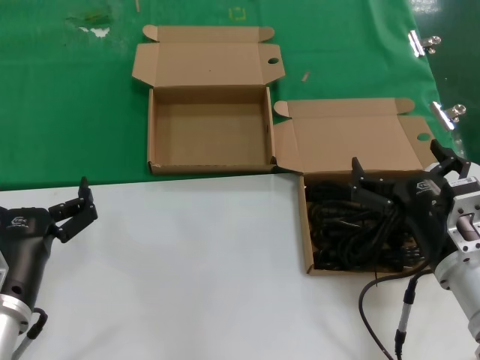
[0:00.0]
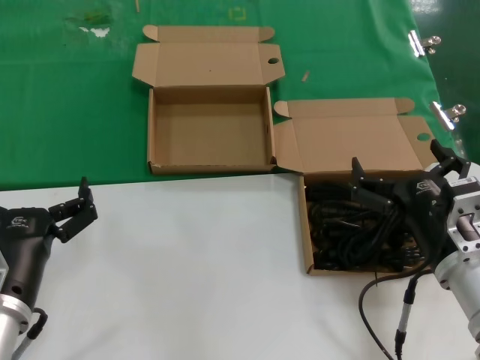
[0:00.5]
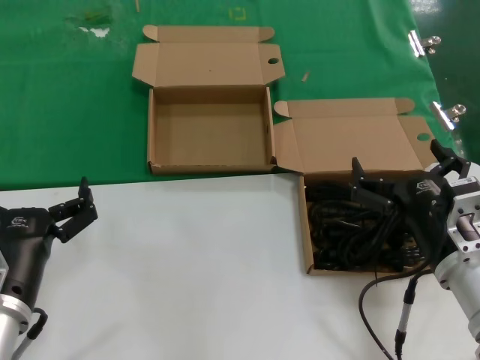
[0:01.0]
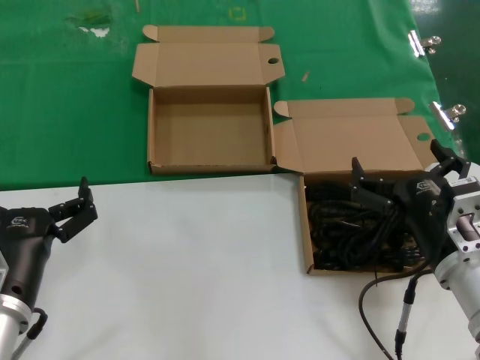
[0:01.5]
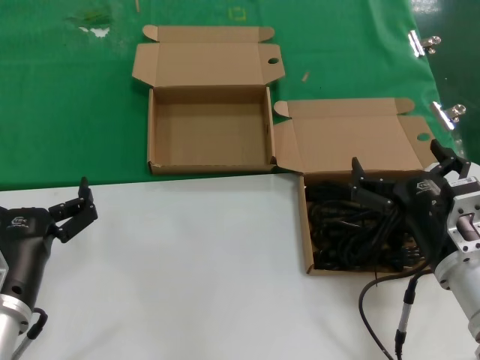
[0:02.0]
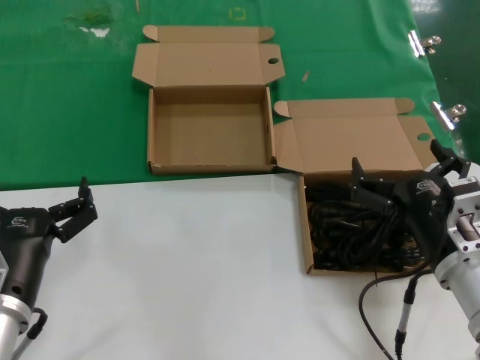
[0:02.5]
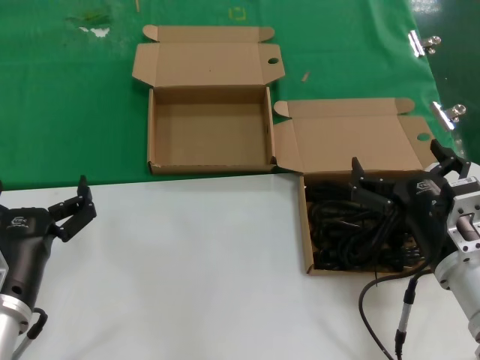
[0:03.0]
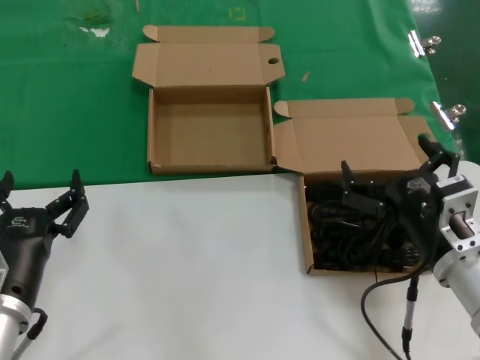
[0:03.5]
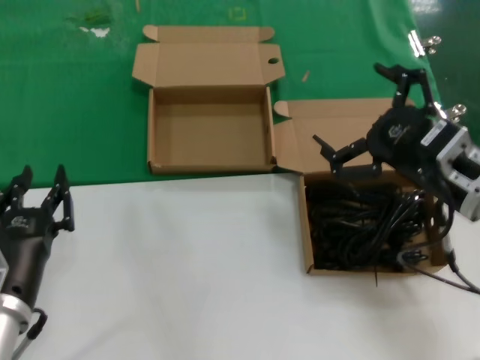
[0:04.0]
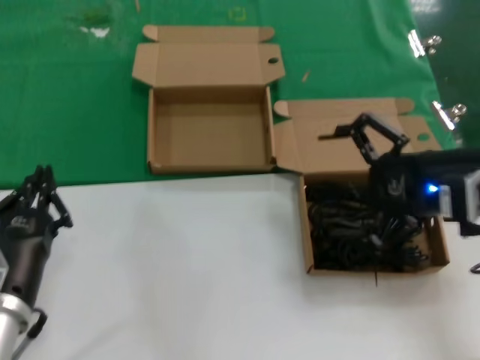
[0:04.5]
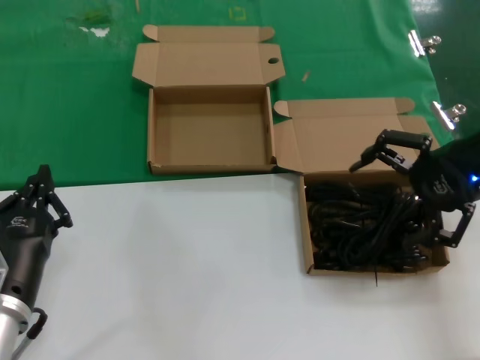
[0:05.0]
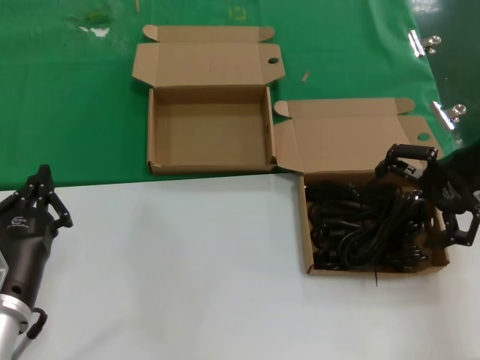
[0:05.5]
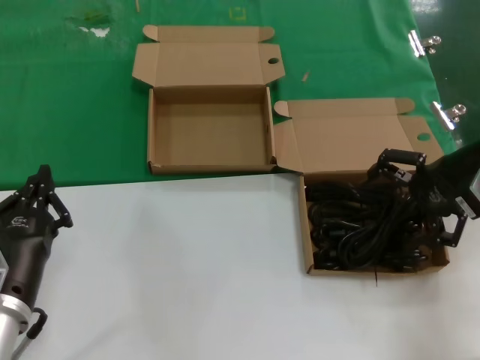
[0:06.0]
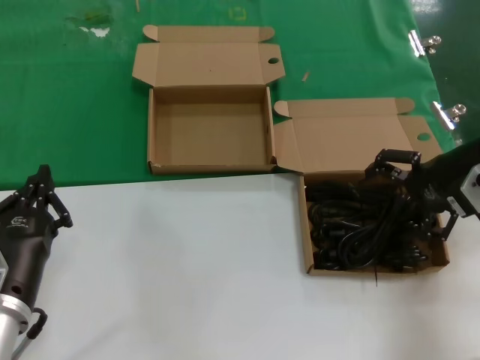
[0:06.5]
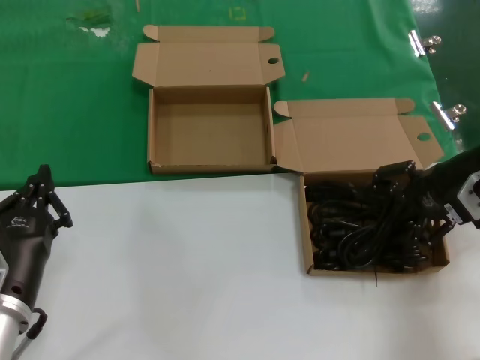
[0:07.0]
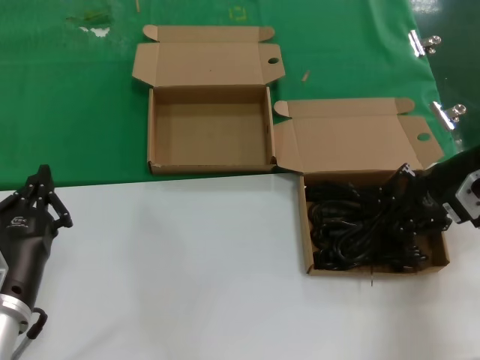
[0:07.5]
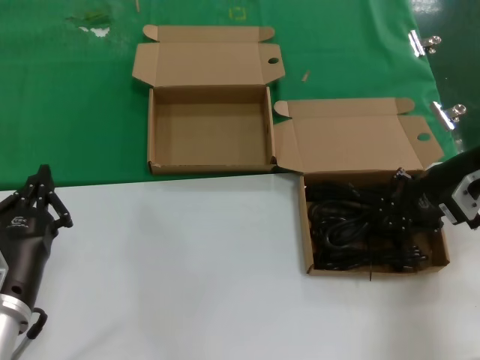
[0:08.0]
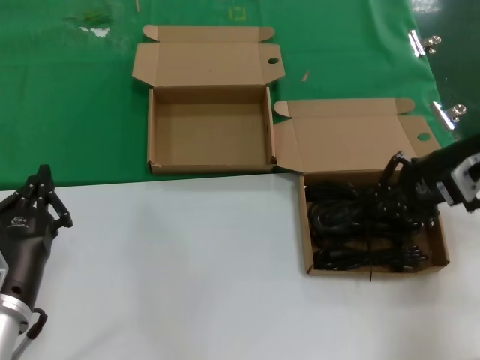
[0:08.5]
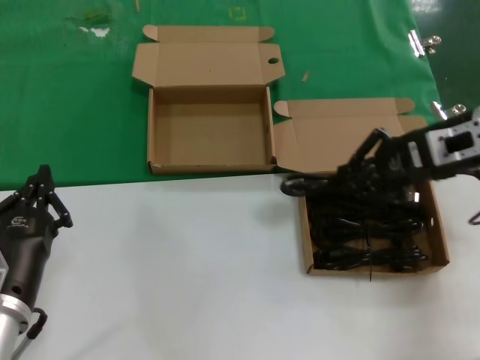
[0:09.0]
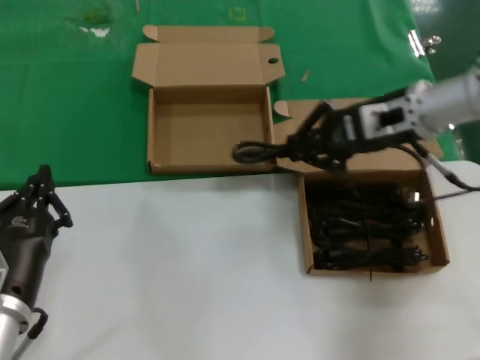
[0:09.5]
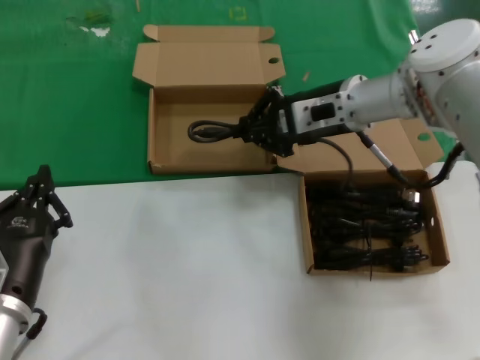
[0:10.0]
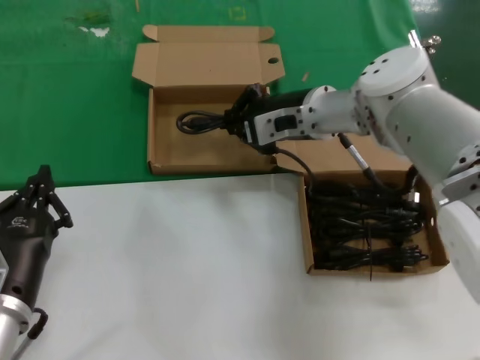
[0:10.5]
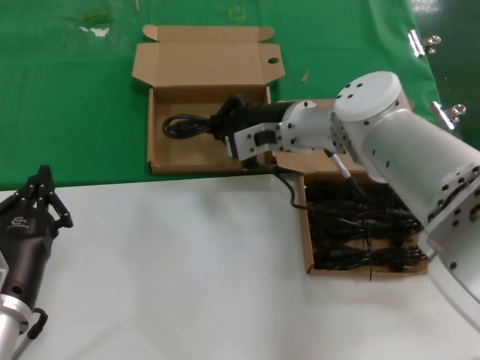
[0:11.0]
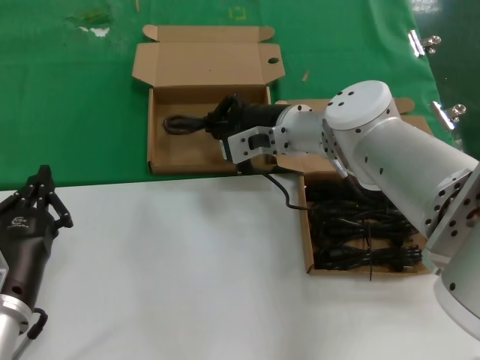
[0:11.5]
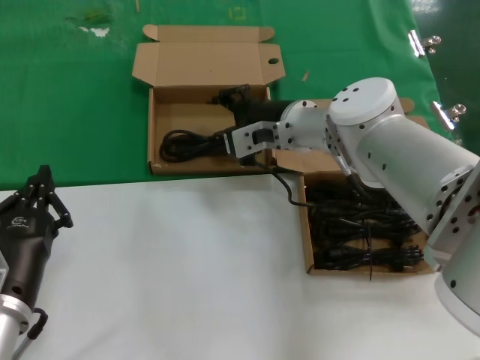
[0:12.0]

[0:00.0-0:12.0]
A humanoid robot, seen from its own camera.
Task of the whole recording: take the parts from the box containing them and put them into an empty box.
Step, 0.0 to 7.5 s: Grasp the data cable.
Step, 8.0 to 11.5 s: Place the data cable in the another box.
0.0 to 2.0 s: Both hands stay about where they are.
2.0 to 4.0 s: The right hand goes about 10 cm upward.
4.0 to 6.0 s: The right hand goes roughly 15 cm forward, to the right and upward.
6.0 to 8.0 s: The right hand moves approximately 5 cm.
8.0 to 10.0 s: The right hand shifts about 20 cm to the left and forward.
10.0 to 12.0 s: The right hand is displaced to the left and downward by roughly 10 cm.

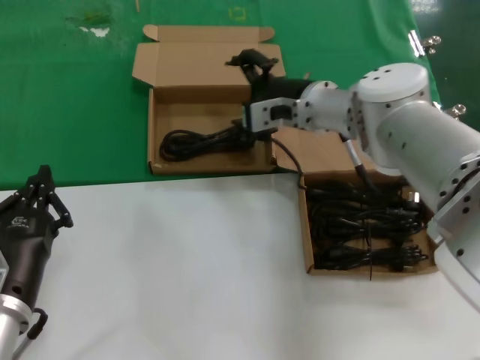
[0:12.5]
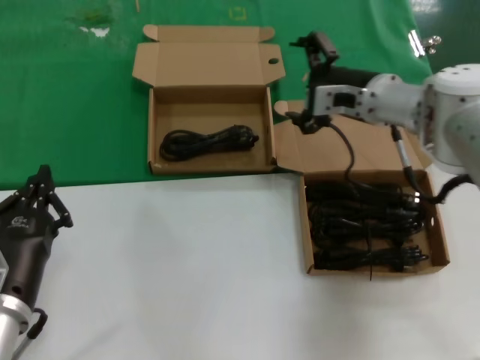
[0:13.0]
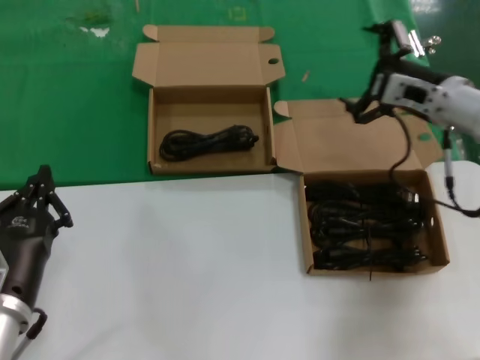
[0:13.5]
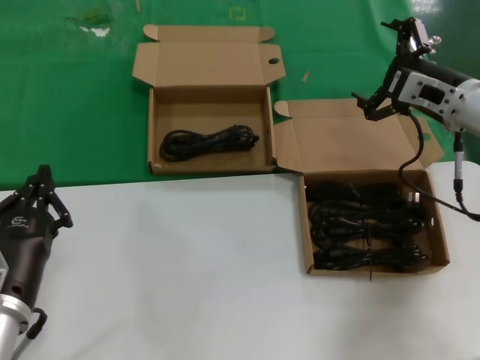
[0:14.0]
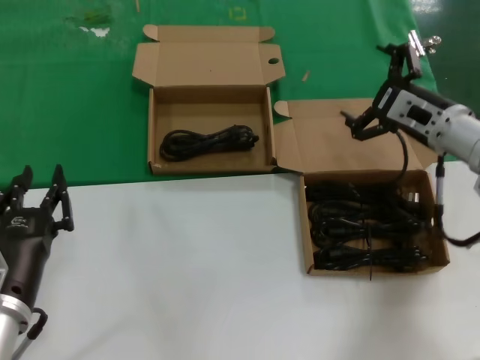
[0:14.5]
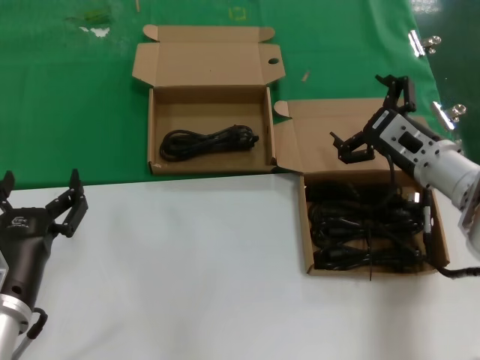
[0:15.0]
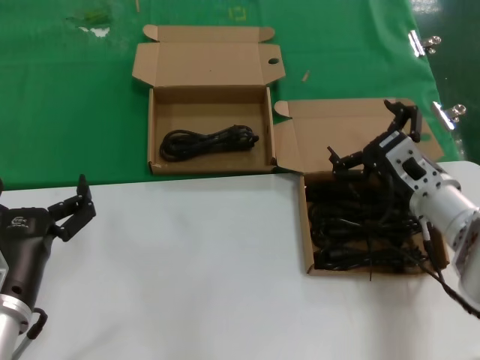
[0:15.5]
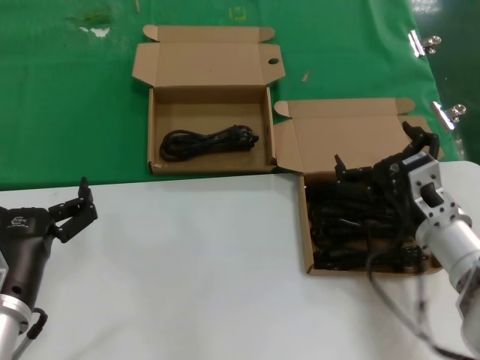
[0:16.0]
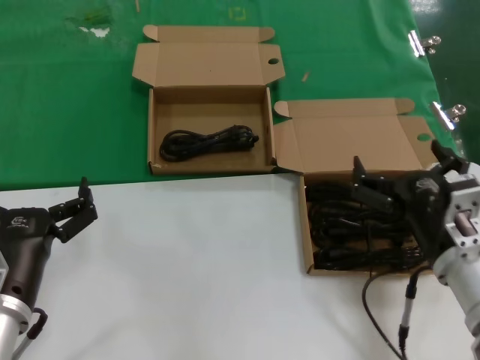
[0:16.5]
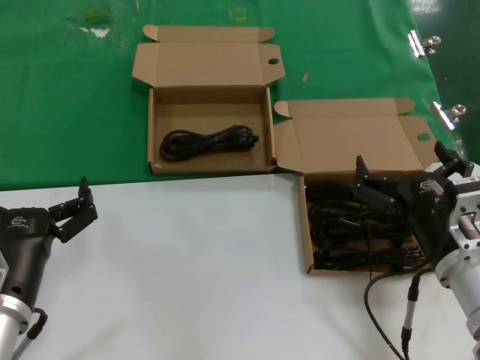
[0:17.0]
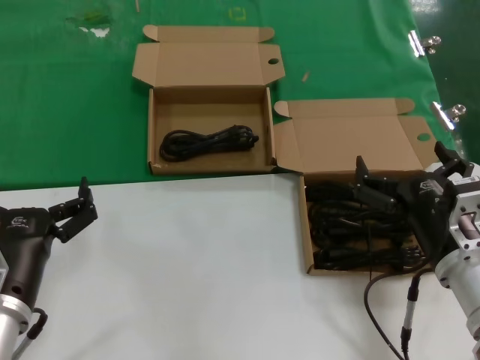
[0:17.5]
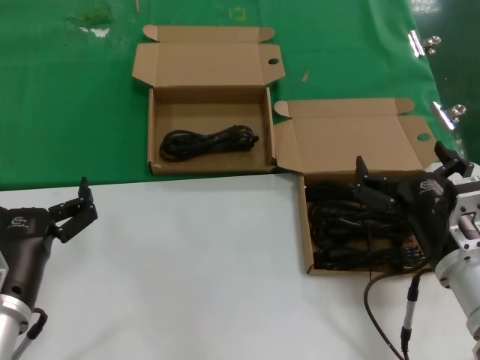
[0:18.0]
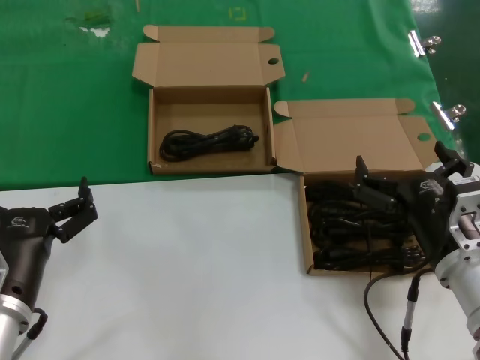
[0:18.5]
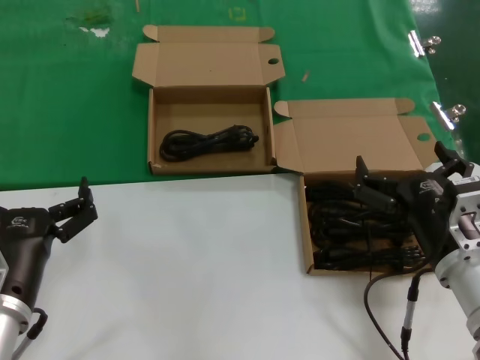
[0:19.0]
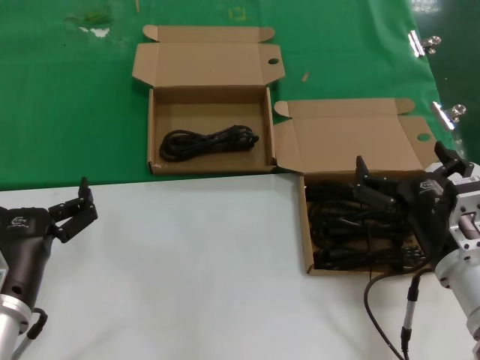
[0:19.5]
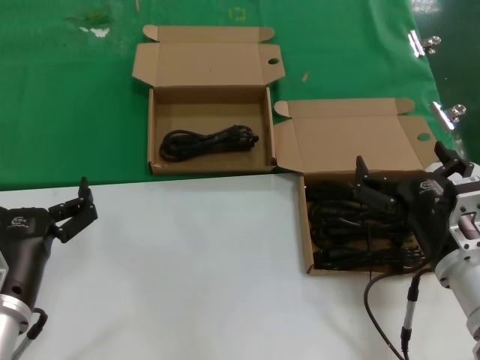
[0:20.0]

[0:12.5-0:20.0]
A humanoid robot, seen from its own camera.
Task of the whole recording: take the parts from the box containing them and put them into an empty box.
12.5 to 14.5 s: The right hand travels to the right by roughly 20 cm.
14.5 to 16.5 s: The right hand travels backward by approximately 20 cm.
16.5 to 20.0 s: Both hands stay put.

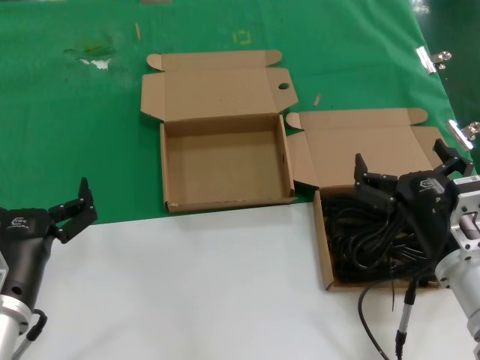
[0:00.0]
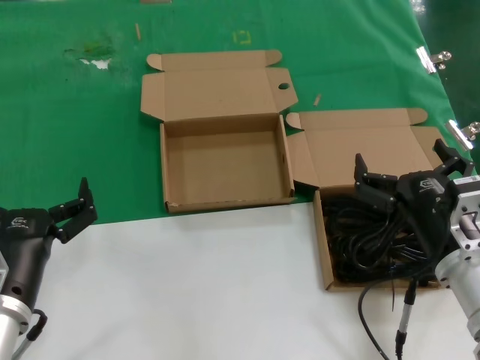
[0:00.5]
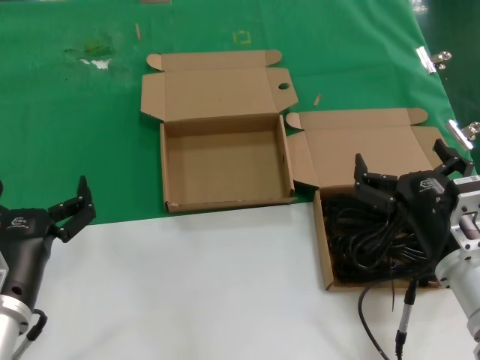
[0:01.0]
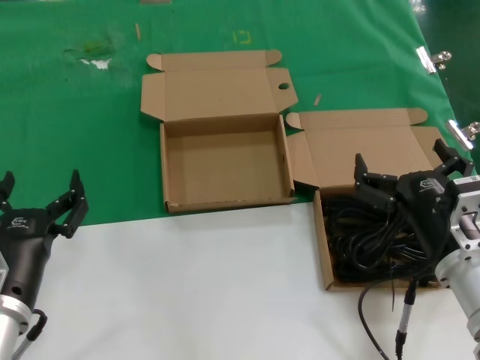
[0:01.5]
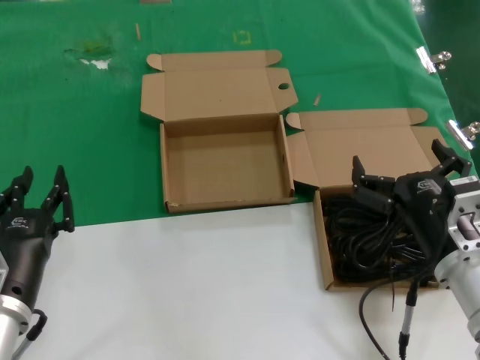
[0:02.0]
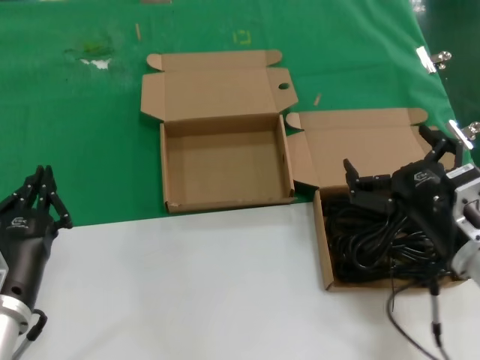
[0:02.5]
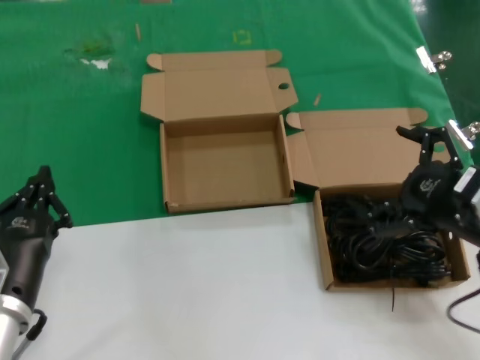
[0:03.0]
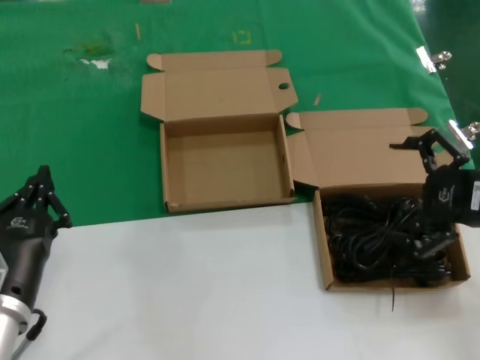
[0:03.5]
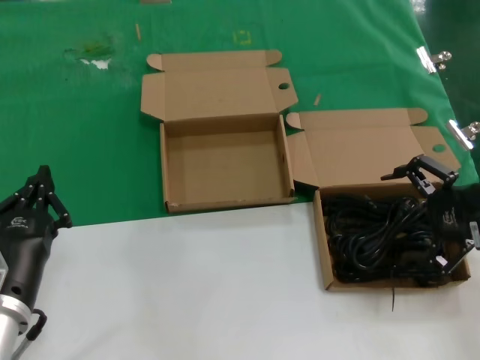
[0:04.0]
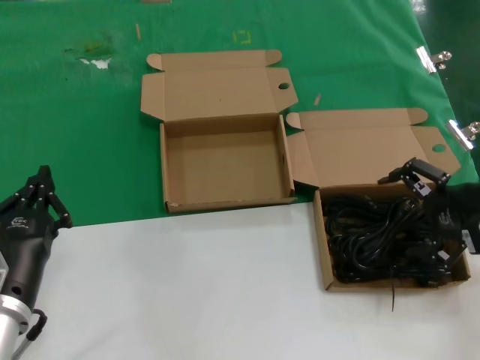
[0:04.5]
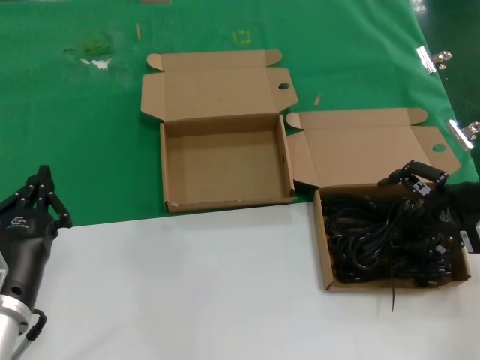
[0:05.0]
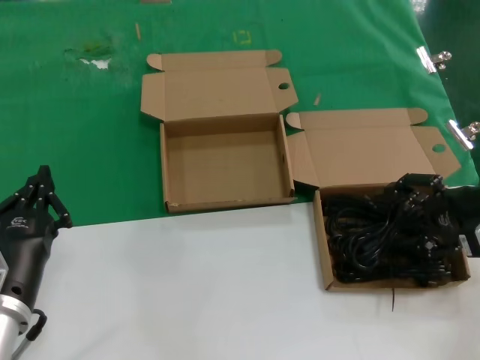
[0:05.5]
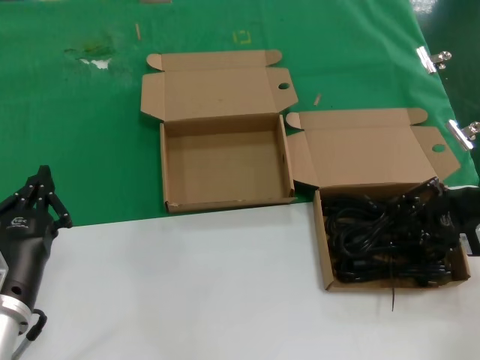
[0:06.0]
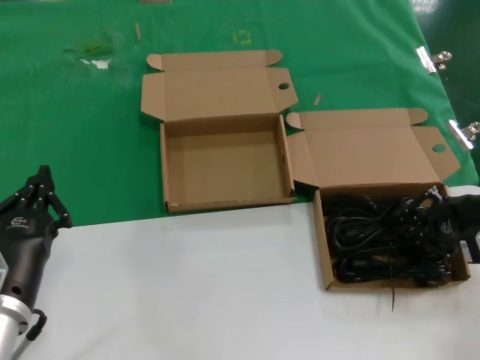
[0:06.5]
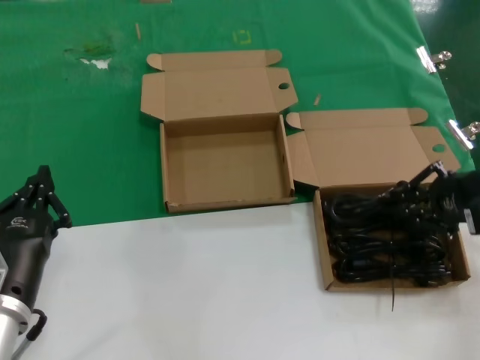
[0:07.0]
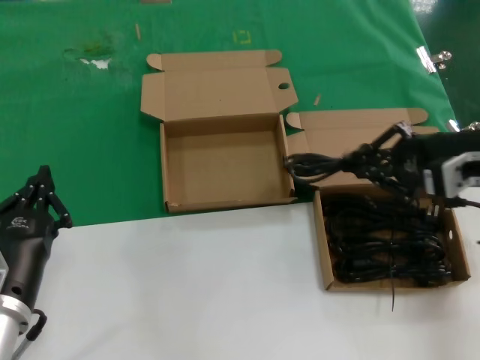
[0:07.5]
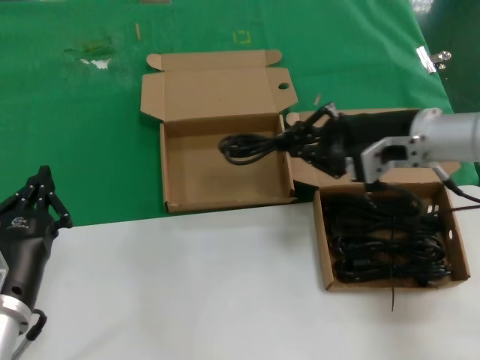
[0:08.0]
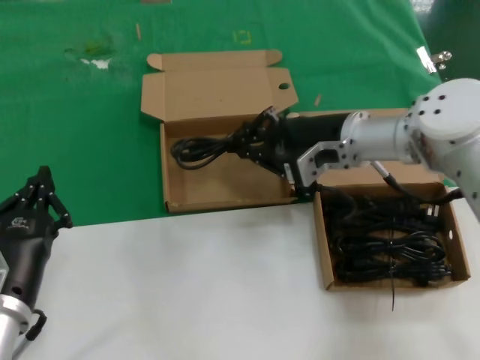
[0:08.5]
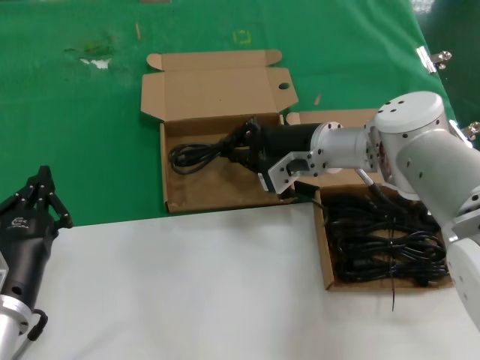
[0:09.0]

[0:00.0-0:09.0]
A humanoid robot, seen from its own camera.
Task of the whole recording: take the parts from the box containing them and put them into an empty box.
Step, 0.0 to 6.0 s: Grasp the data cable.
0.0 to 2.0 s: Both hands stay put.
2.0 to 4.5 s: The right hand travels to the right, upward and forward by about 20 cm.
4.5 to 7.0 s: There are only small adjustments of the hands.
7.0 to 9.0 s: The right hand travels to the left and forward by roughly 25 cm.
